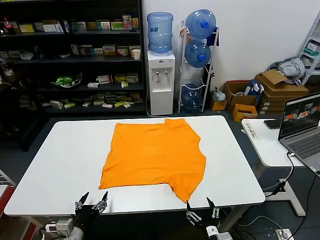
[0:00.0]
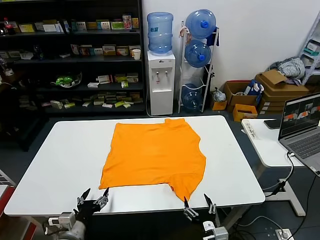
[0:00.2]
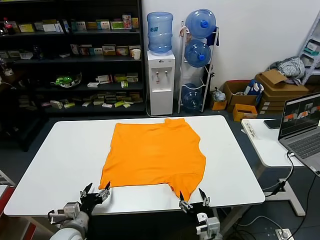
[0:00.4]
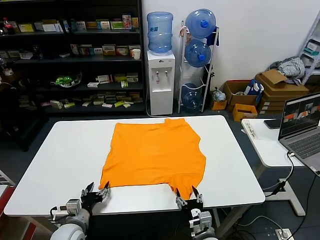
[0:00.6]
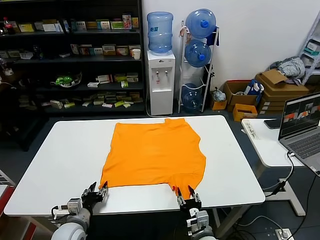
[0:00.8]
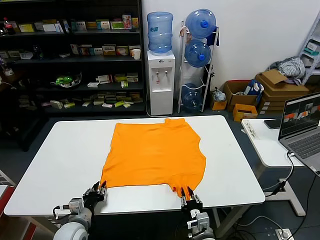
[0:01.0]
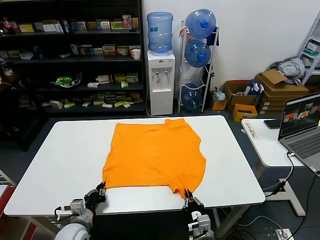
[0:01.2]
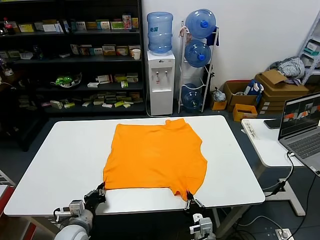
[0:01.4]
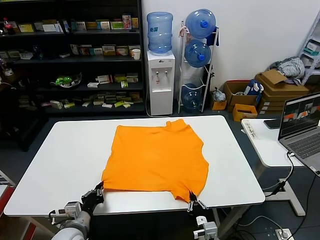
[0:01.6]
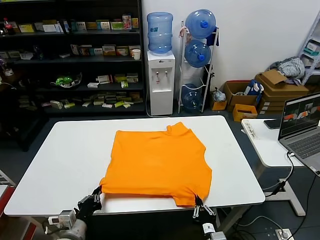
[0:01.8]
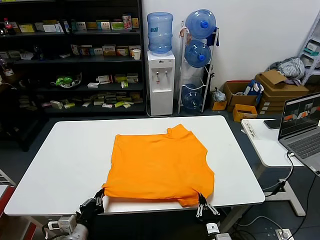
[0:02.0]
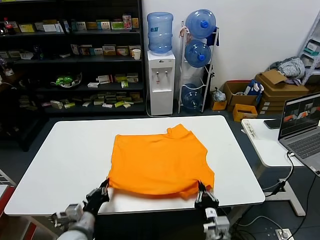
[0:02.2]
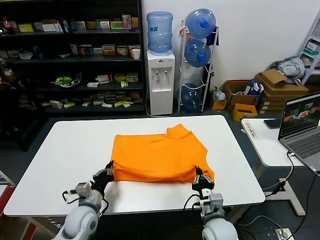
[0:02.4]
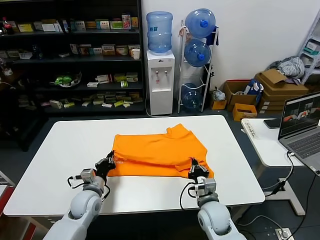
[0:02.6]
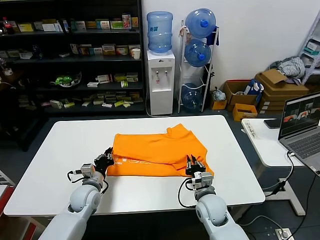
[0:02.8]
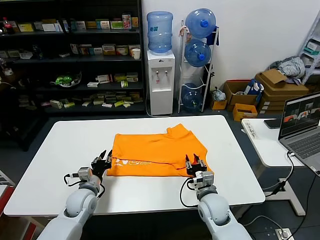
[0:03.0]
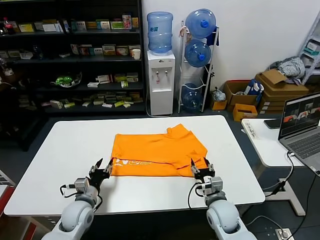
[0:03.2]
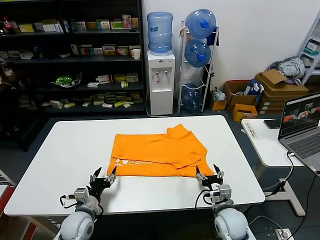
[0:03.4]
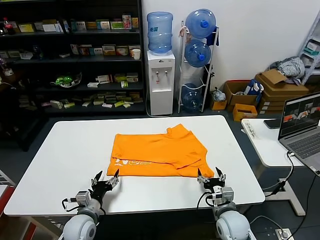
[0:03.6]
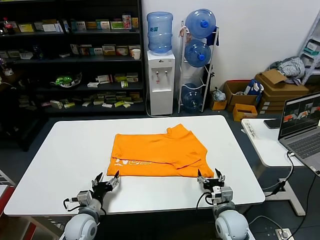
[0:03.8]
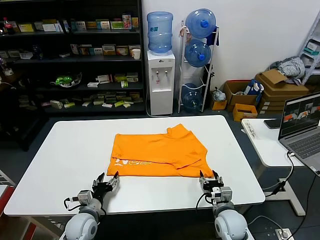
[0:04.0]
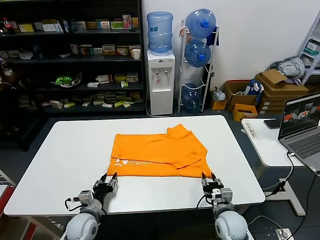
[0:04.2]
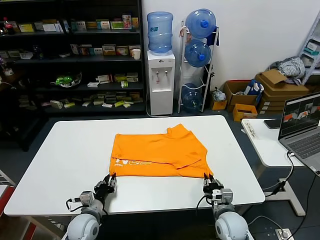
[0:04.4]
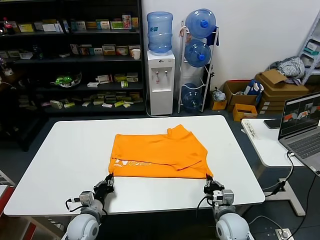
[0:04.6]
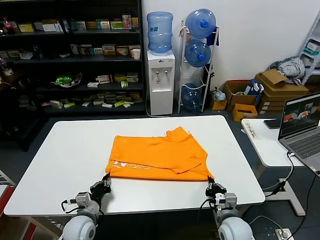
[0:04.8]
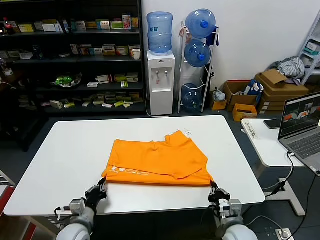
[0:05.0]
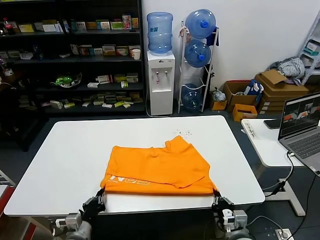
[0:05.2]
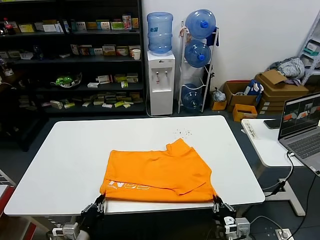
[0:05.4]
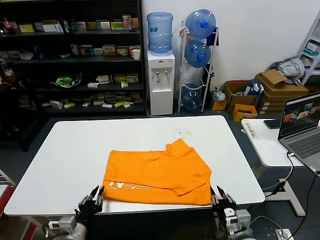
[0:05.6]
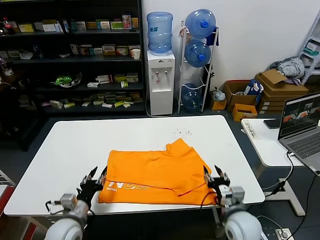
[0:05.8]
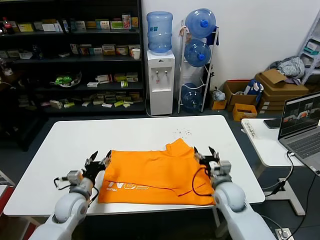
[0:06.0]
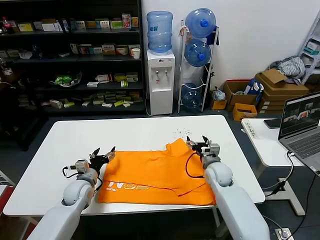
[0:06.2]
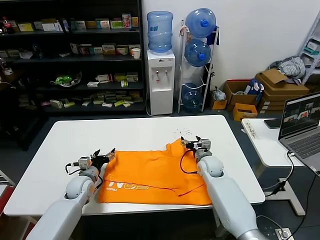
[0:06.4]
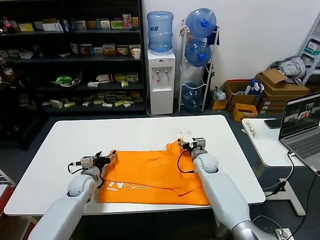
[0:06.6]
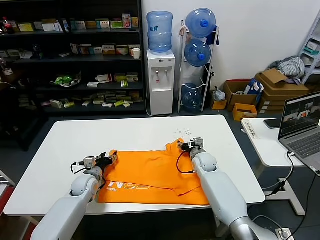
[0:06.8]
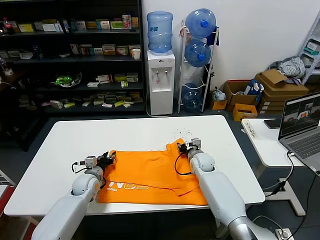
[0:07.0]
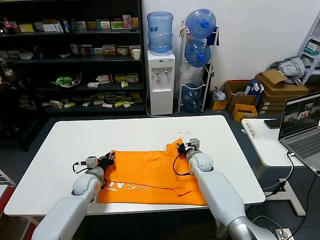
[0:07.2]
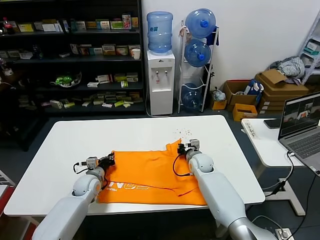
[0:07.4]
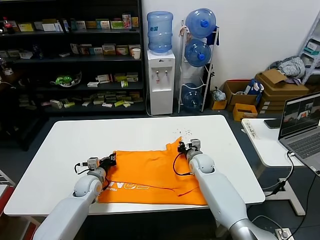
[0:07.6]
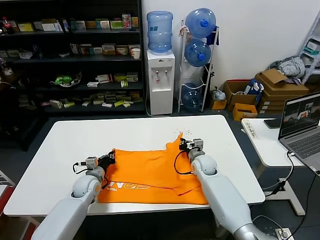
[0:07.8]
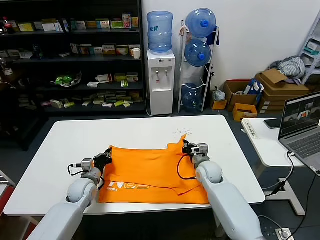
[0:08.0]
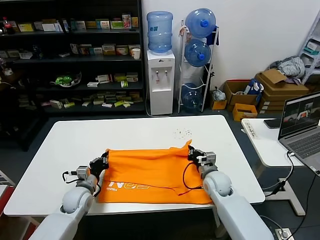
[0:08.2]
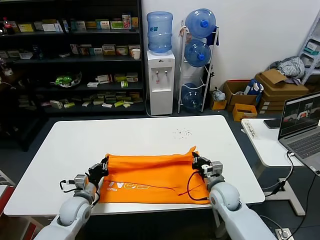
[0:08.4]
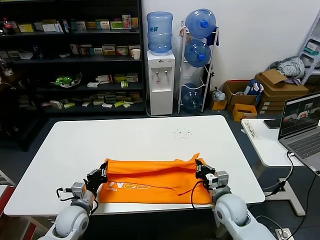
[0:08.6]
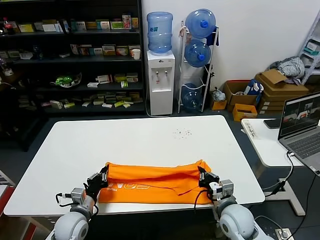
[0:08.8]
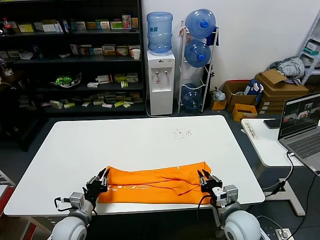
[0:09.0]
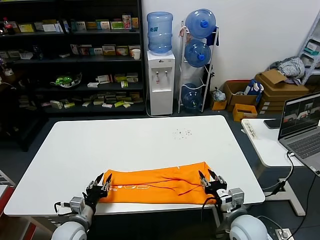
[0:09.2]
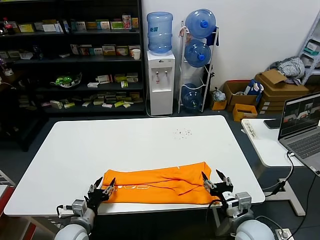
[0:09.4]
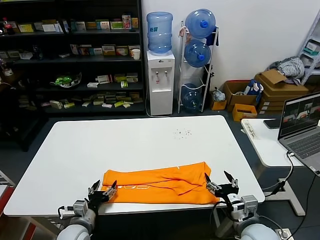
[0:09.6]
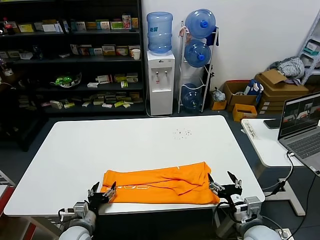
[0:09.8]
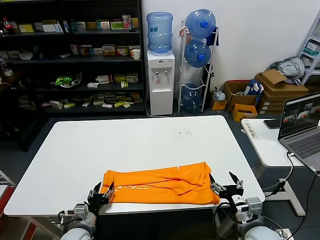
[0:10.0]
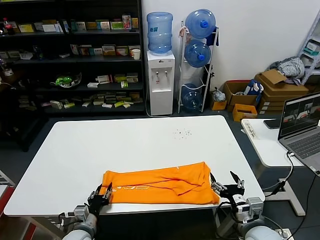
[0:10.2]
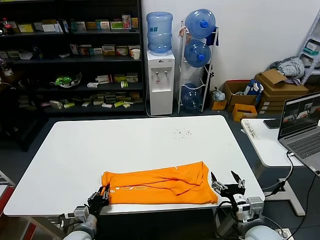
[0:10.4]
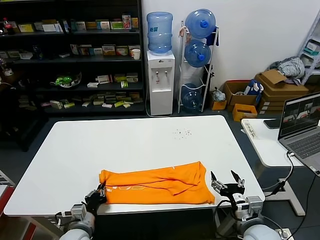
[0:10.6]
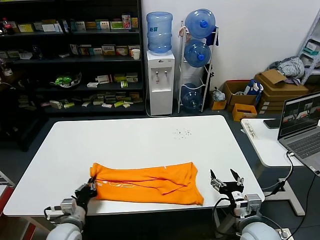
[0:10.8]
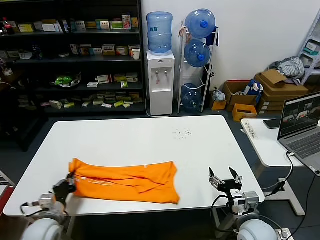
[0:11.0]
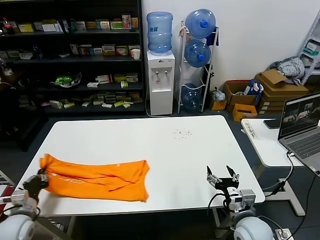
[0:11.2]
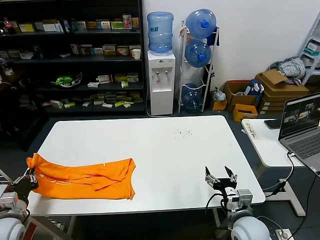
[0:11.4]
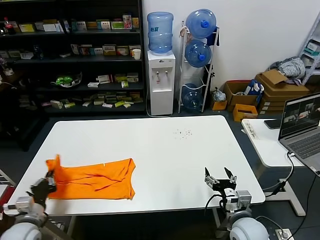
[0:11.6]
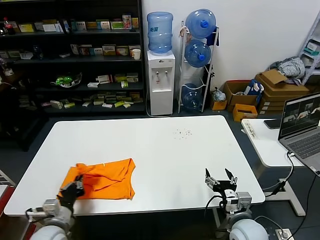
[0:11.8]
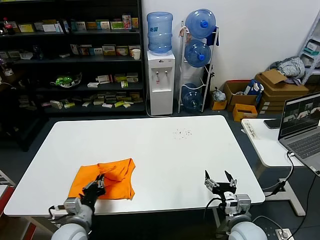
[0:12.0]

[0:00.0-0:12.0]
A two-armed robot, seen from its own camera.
Task of the whole recording: fold and organize the clothes.
Step, 0.0 to 1.2 s: use both grippers simultaneously to clamp the lower edge of the clothing fabric.
Step, 1.4 to 2.8 s: use both grippers to drag the lower edge of the fabric forward and fold it over the upper edge.
Step, 3.2 to 5.6 s: Drag the clothes downward with both gripper.
Step, 5.8 to 7.4 s: use both grippers simultaneously to clamp the upper edge of the clothing fabric.
Step, 7.6 to 9.0 s: use both grippers to drag the upper edge of the fabric backward and fold it over the lower edge.
Step, 9.2 to 10.4 s: use the left gripper to clamp the left edge of the fabric.
1.6 to 3.0 s: Both grippers move forward, roughly 15 cm. The right gripper opens. Meanwhile the left gripper opens its fingers.
3.0 to 4.4 s: The right gripper ends up about 10 cm from where it was, and closes up. The left gripper goes roughly 5 cm backward, and opens, then closes once more.
4.4 to 6.0 s: The right gripper shifts some 10 cm forward and upward, and opens its fingers. The left gripper is displaced upward by approximately 5 cm, goes backward and returns, about 10 cm each way, and opens up.
6.0 to 7.6 s: The right gripper travels forward and to the left by some 15 cm, and closes up. The left gripper is displaced forward and downward by about 10 cm, and closes up.
7.6 to 9.0 s: The right gripper is displaced backward by roughly 25 cm. Meanwhile the left gripper heads backward, covering some 15 cm.
9.0 to 10.4 s: The left gripper moves about 5 cm, and opens, then closes once more, while the right gripper moves approximately 5 cm, and opens its fingers.
10.4 to 12.0 s: The left gripper moves upward, roughly 5 cm, and reaches some 20 cm to the left, then returns.

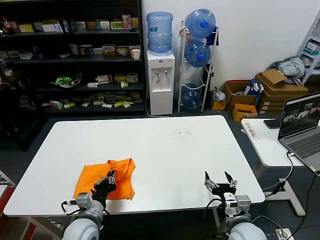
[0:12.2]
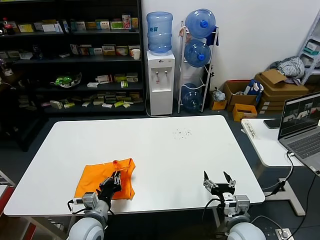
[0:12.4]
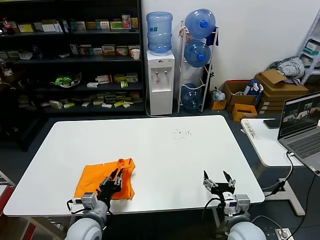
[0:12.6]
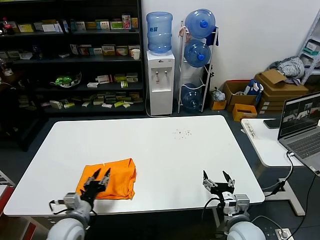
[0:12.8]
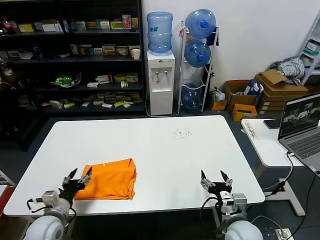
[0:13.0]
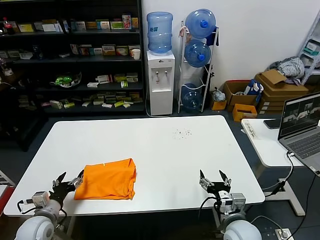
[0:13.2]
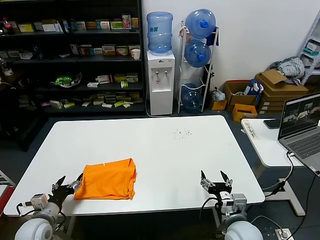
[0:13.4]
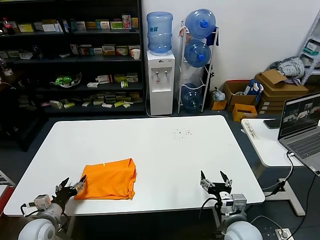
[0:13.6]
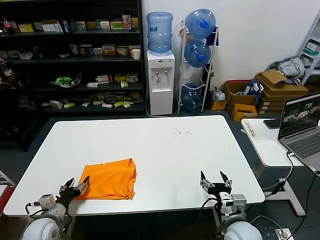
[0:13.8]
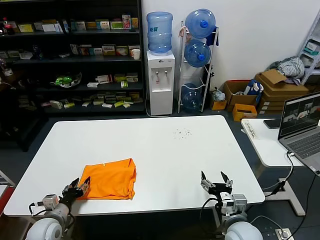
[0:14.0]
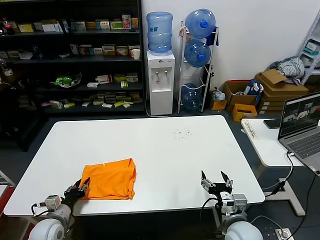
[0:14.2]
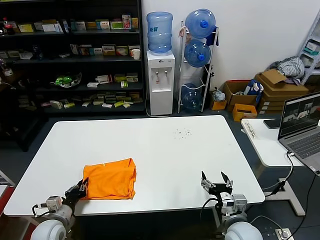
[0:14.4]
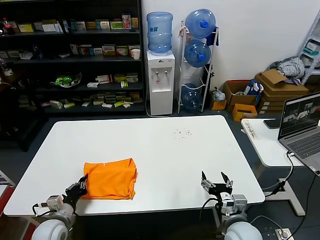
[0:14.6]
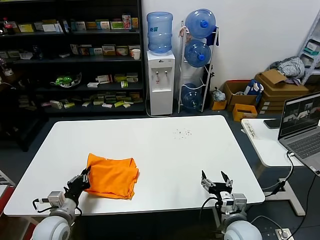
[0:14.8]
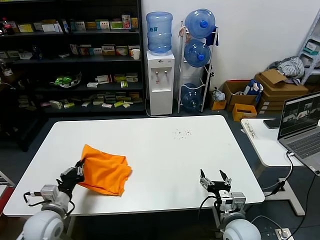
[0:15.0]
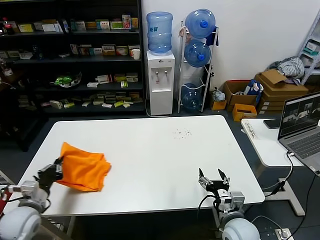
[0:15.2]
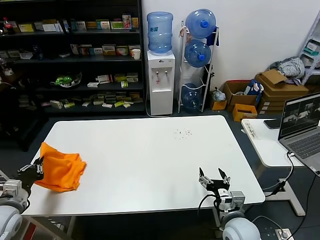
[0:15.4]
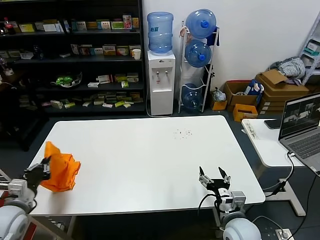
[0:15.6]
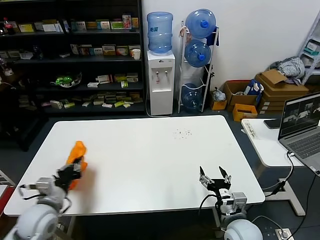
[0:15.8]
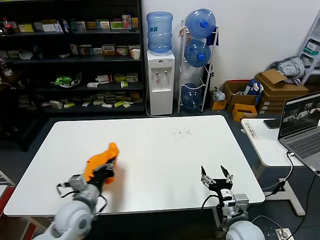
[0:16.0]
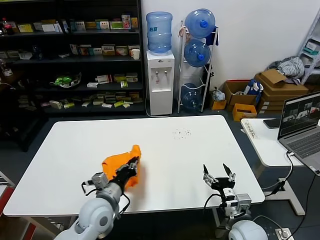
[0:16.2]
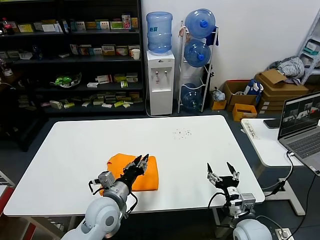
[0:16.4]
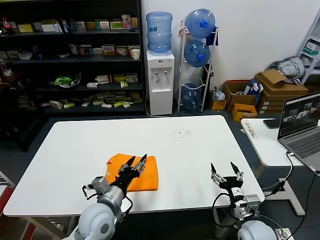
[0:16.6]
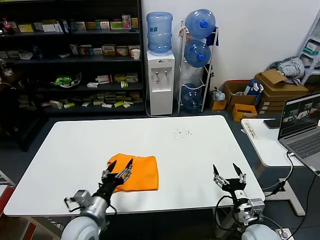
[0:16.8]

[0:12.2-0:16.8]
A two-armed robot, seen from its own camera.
Task of the whole recording: fold and organize the clothes.
Step, 12.8 to 16.2 s: Flip the folded clothes over with left gripper.
12.2 to 13.8 s: The left gripper goes some 15 cm to the left, and opens its fingers.
13.8 to 15.2 s: The left gripper goes about 10 cm upward, and closes.
15.2 to 16.8 s: The left gripper goes left and right, roughly 30 cm each way, reversing 2 times, and opens up; the right gripper heads to the right, covering roughly 5 cm.

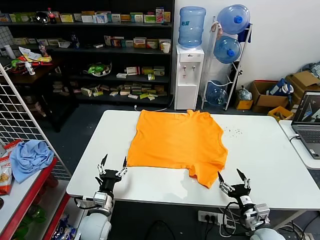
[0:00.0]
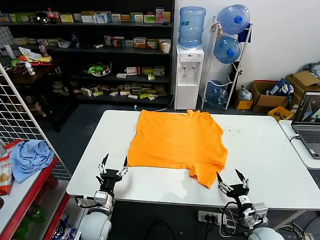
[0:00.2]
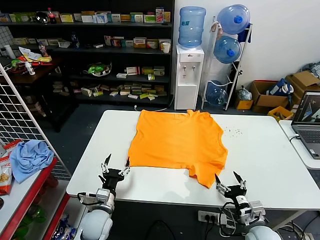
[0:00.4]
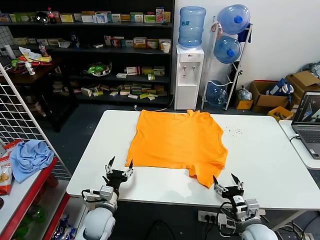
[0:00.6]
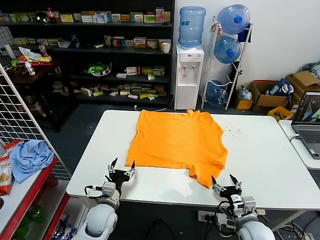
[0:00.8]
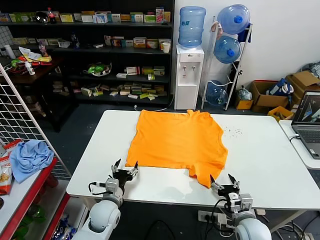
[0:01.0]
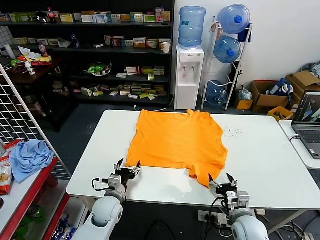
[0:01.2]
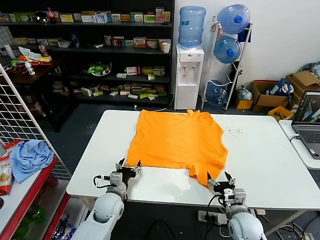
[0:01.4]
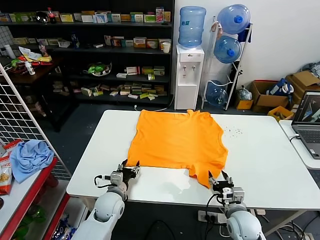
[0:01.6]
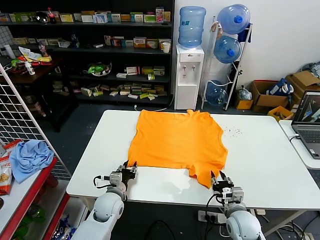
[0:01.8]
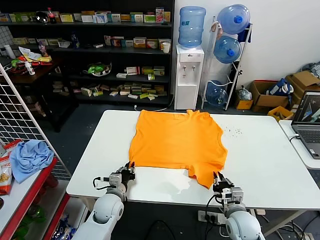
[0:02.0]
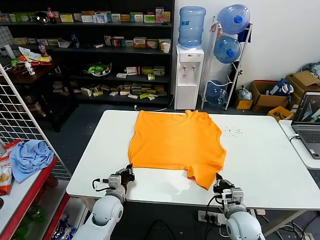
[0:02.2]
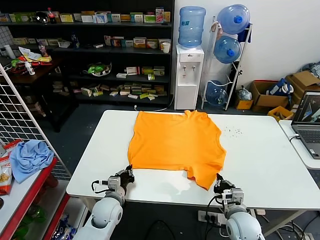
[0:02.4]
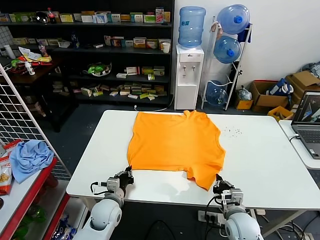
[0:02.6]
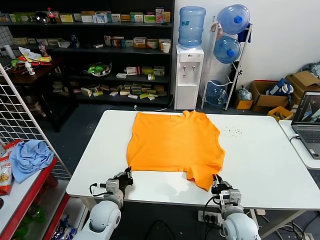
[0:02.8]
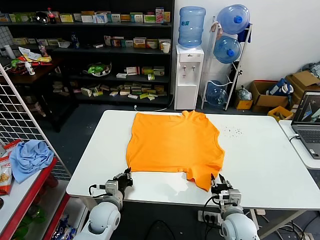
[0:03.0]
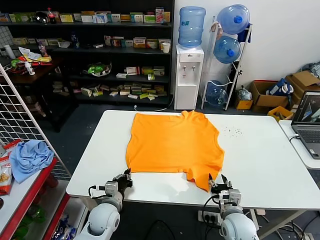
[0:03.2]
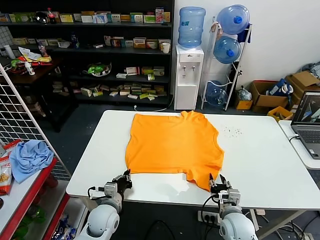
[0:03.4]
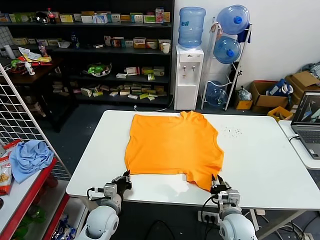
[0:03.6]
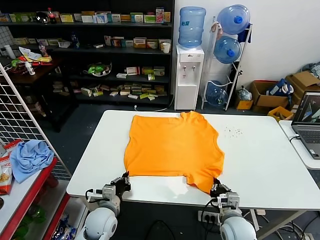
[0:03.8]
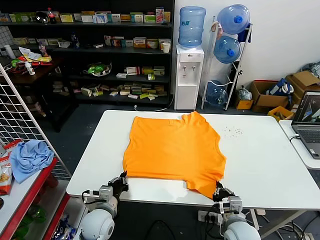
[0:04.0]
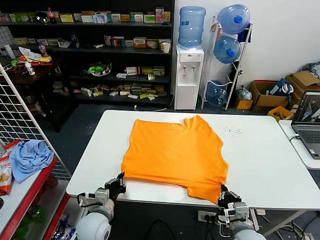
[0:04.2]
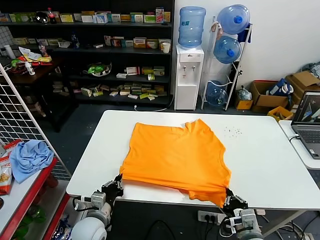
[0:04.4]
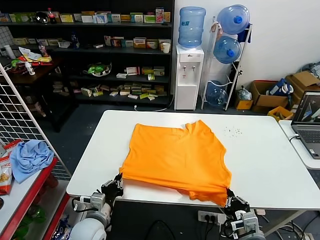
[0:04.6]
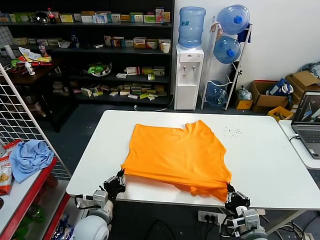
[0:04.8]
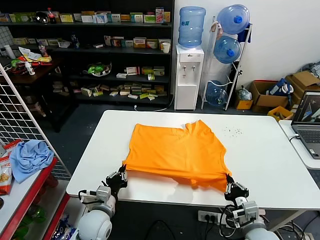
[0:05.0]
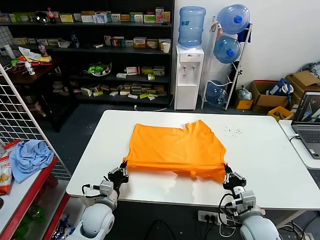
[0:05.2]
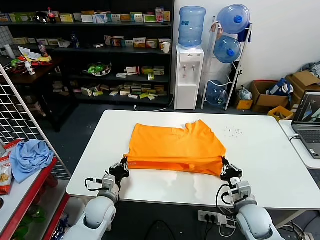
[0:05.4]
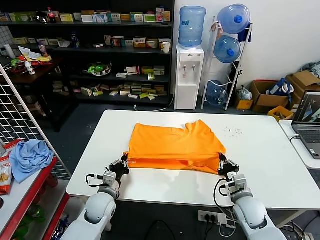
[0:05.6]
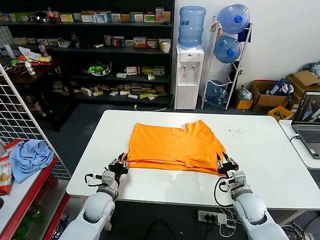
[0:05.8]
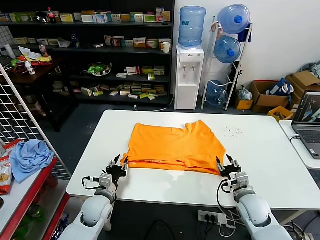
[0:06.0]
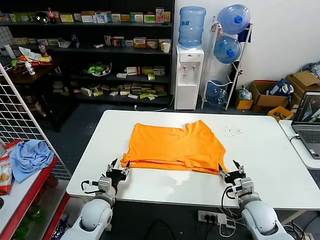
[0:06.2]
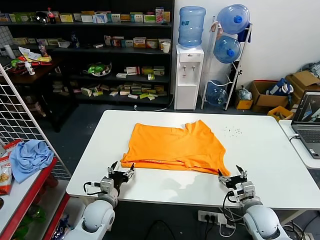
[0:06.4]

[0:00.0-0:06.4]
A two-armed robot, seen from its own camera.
Task of the whole recording: fold and organize the clothes.
Step, 0.0 to 3.8 s: use both grippers simultaneously to clamp the lower edge of the clothing fabric.
Step, 4.0 to 6.0 s: use both grippers to drag the lower edge of the fabric forward and fold it over the upper edge.
1.6 to 3.2 s: The left gripper closes its fingers. The right gripper closes and opens again.
3.2 to 4.8 s: The left gripper is displaced backward by roughly 5 cm. The right gripper travels backward and upward by roughly 10 cm, and closes its fingers.
4.8 to 6.4 s: The left gripper goes approximately 5 cm forward, and opens up; the right gripper heads forward, covering about 10 cm, and opens up.
